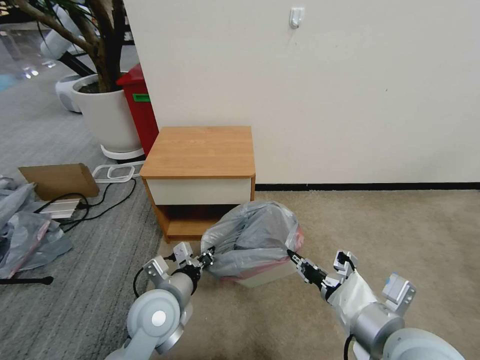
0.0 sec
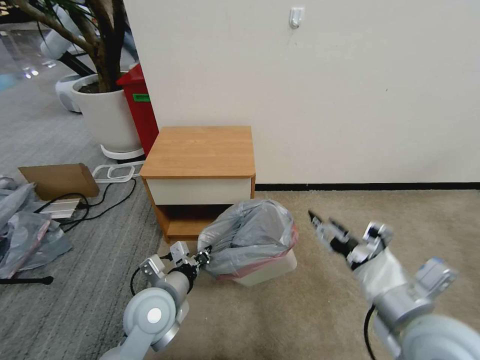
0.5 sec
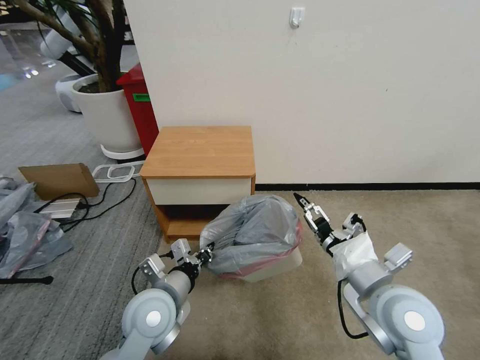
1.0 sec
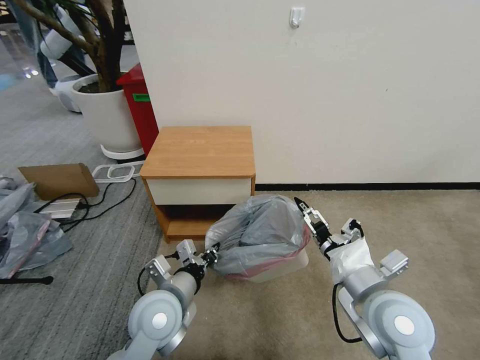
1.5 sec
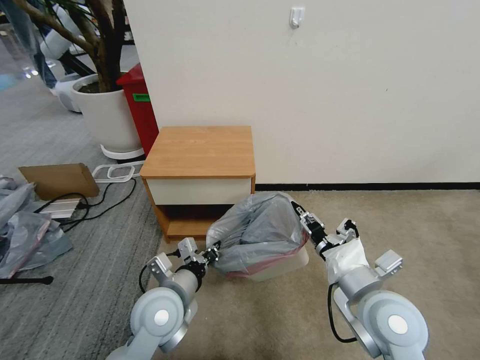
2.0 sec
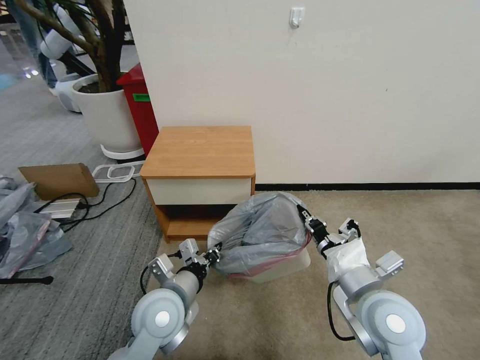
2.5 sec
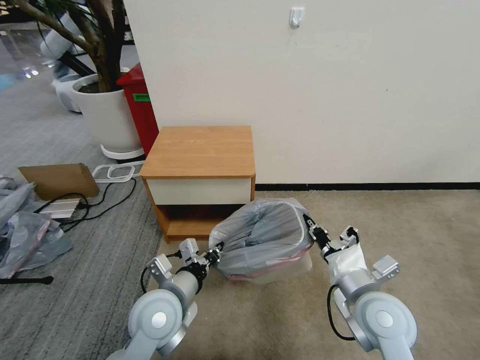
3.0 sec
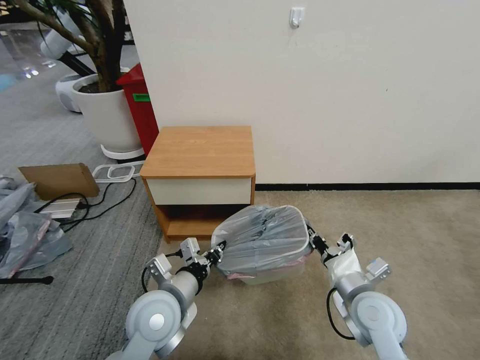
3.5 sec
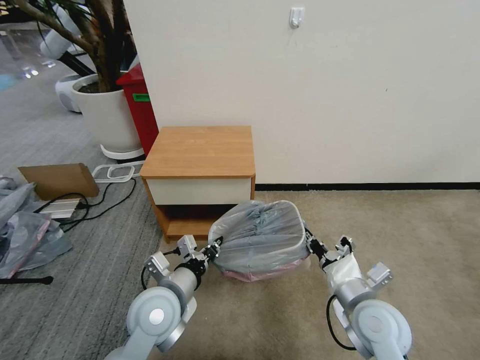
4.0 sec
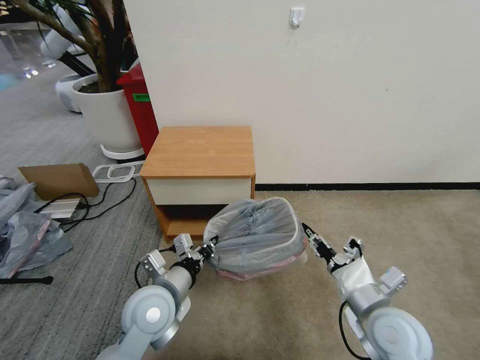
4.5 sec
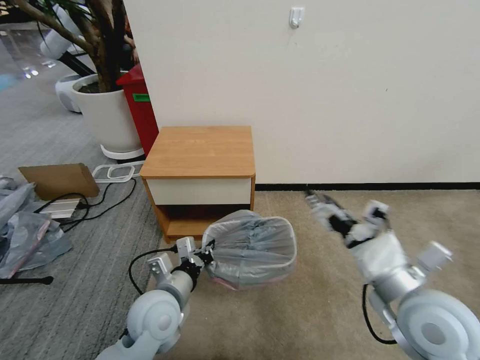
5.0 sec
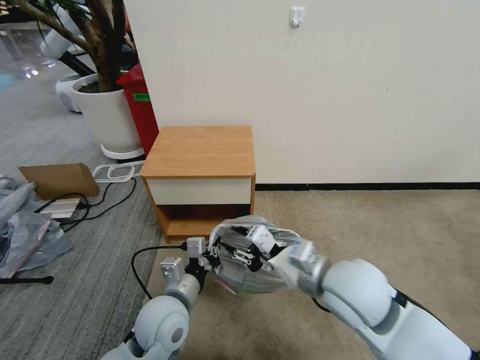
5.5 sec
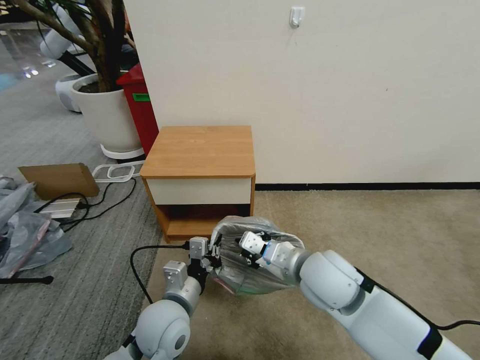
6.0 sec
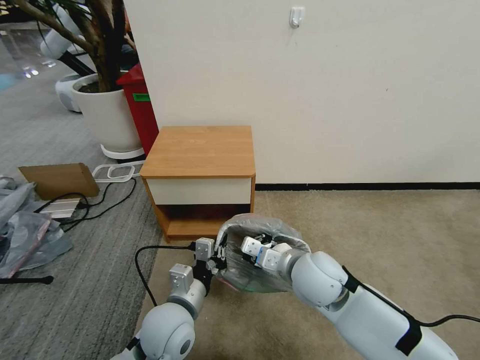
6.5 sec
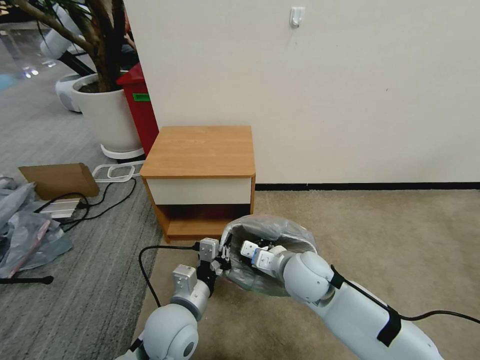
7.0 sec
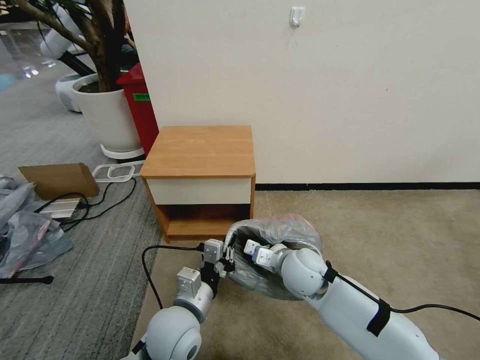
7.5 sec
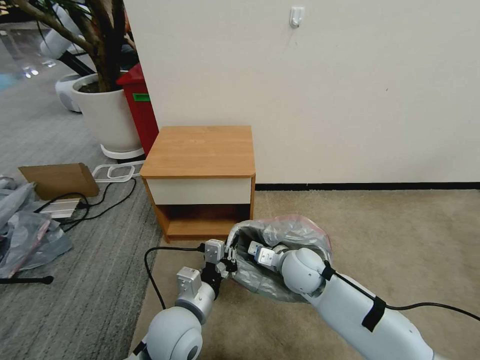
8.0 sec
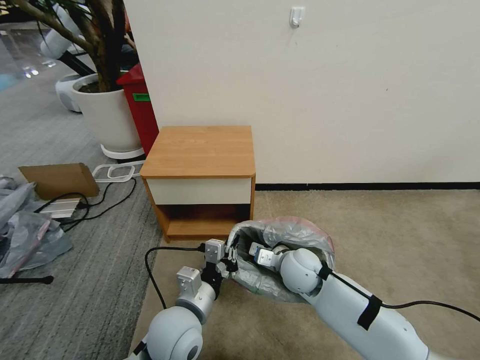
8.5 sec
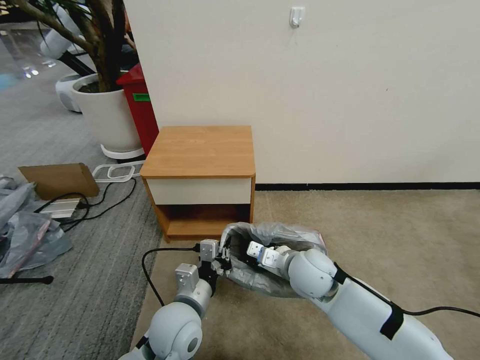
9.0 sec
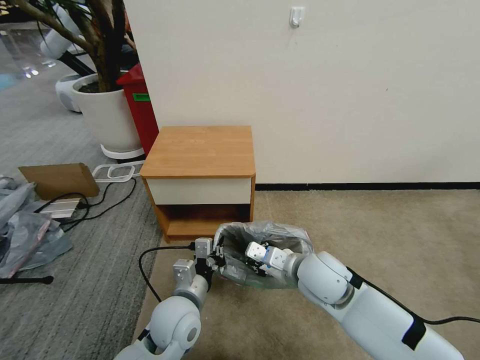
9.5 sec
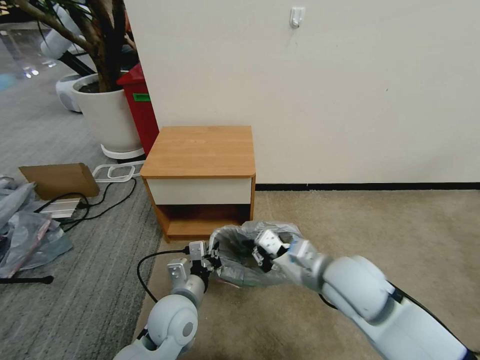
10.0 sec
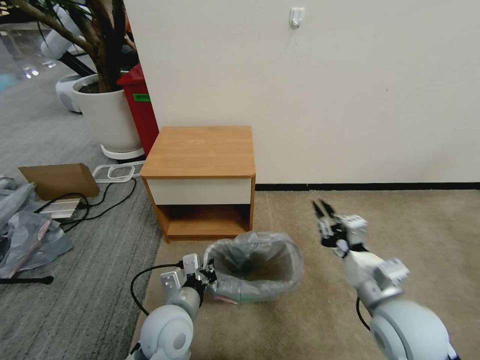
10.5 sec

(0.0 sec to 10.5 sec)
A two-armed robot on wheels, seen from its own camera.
Task of the whole recording: Pick up the garbage bag from the table and place it over the trash can.
0.0 sec - 2.0 sec: The right gripper is displaced forward by about 5 cm, and opens and closes again.
2.0 sec - 4.0 sec: The right gripper goes approximately 10 cm downward, and closes its fingers.
4.0 sec - 6.5 sec: The right gripper is displaced to the left and forward by roughly 15 cm, and opens, then closes again.
6.5 sec - 8.5 sec: The right gripper goes about 10 cm downward and forward.
8.5 sec - 10.5 sec: The right gripper heads backward, to the right and upward, covering roughly 20 cm.

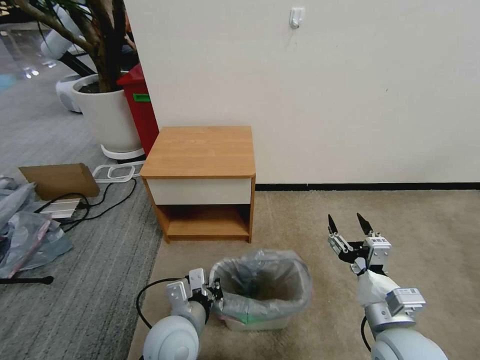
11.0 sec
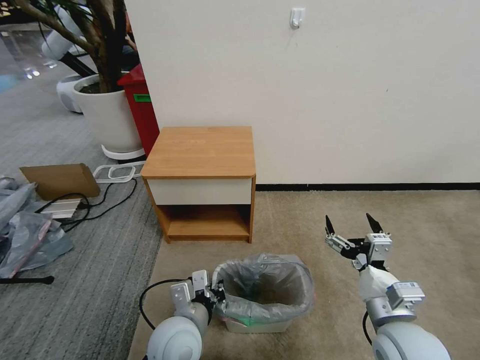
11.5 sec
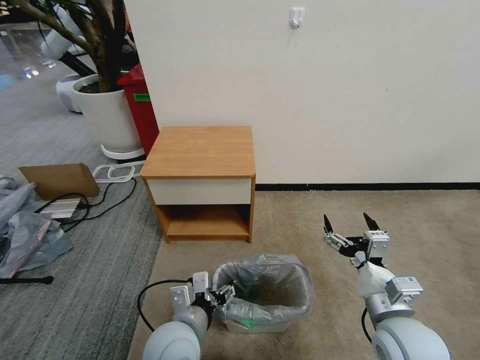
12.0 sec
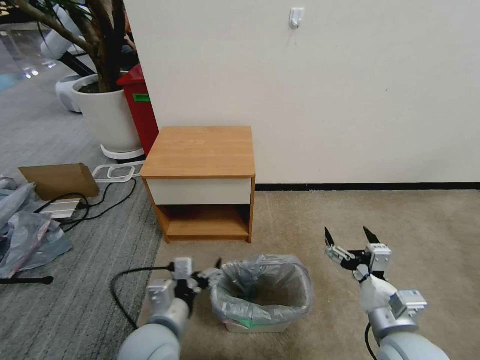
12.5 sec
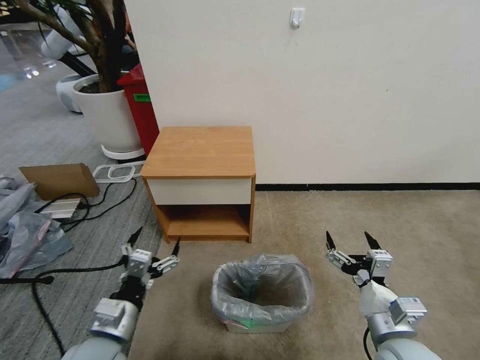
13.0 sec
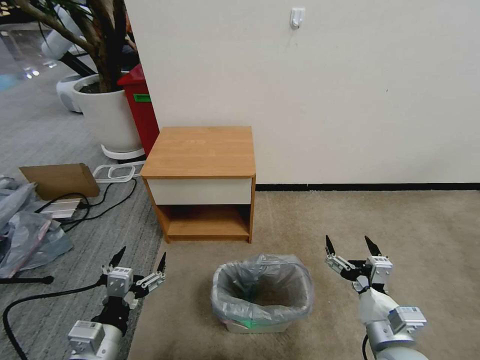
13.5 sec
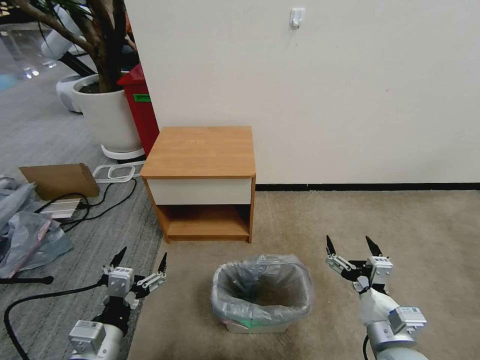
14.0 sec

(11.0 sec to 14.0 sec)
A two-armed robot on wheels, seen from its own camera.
Task of the whole recording: Pick up the garbage bag from the table and place it over the trash can.
11.0 sec - 12.5 sec: The left gripper opens its fingers.
12.5 sec - 14.0 sec: The left gripper travels to the left and backward by about 10 cm.
